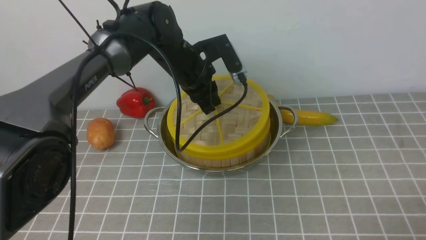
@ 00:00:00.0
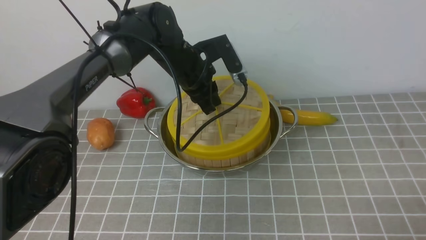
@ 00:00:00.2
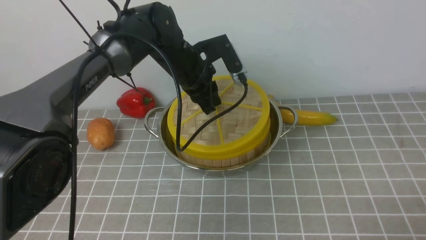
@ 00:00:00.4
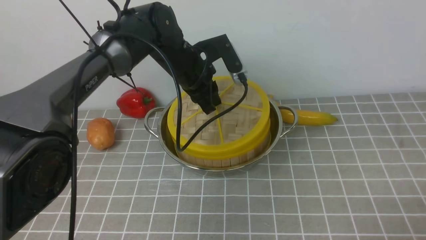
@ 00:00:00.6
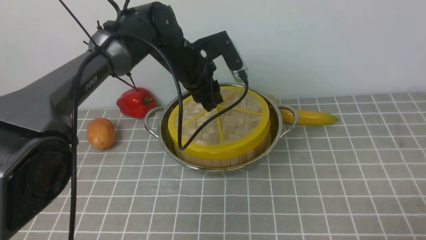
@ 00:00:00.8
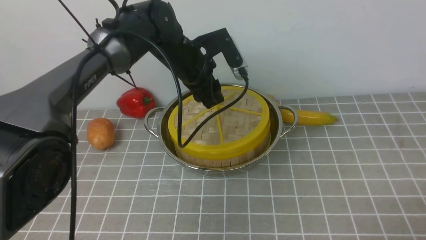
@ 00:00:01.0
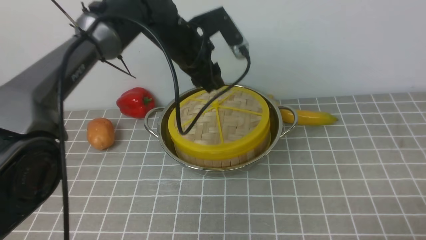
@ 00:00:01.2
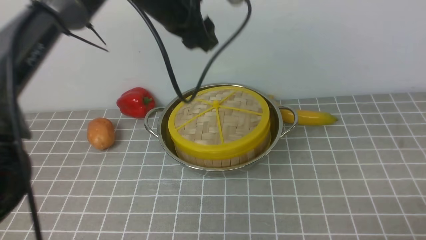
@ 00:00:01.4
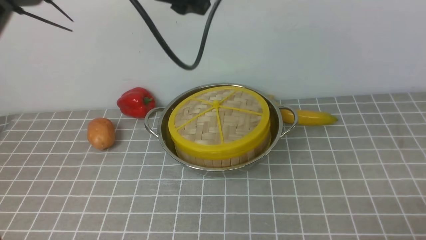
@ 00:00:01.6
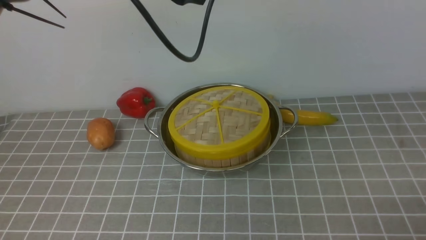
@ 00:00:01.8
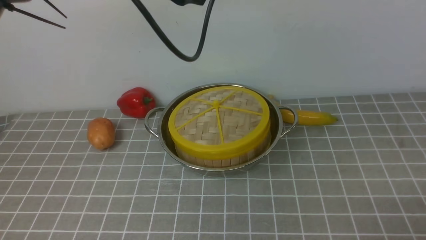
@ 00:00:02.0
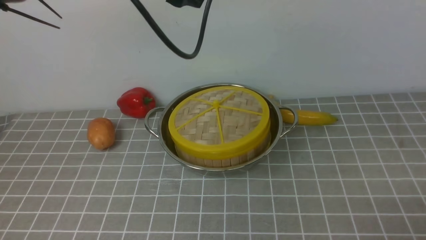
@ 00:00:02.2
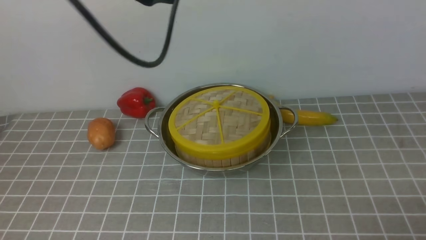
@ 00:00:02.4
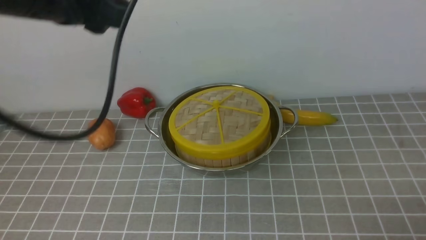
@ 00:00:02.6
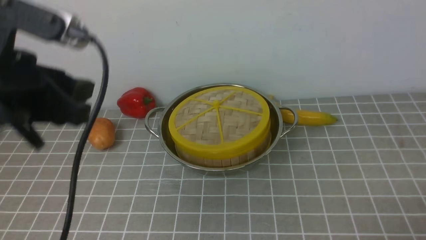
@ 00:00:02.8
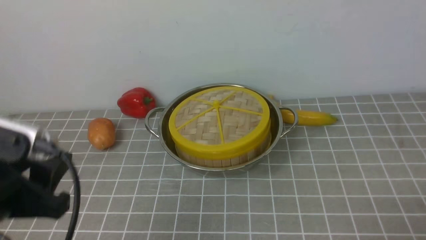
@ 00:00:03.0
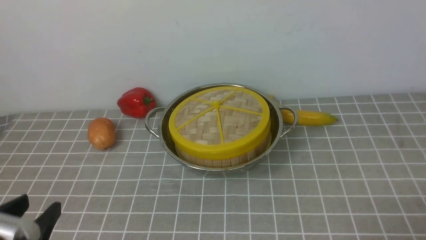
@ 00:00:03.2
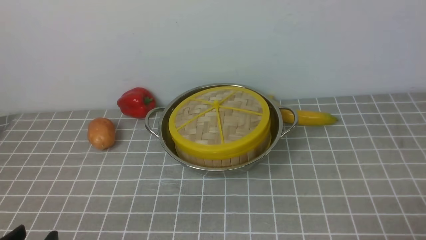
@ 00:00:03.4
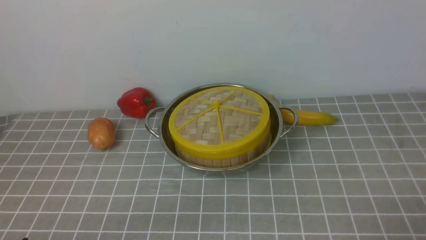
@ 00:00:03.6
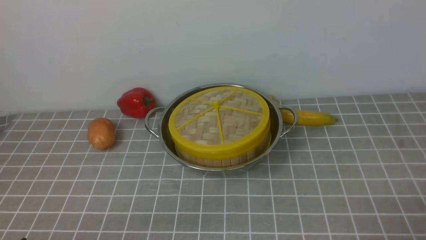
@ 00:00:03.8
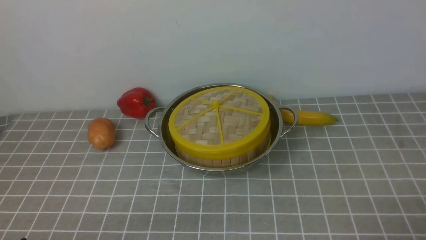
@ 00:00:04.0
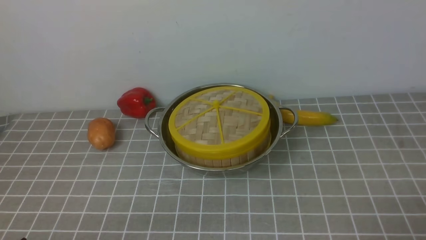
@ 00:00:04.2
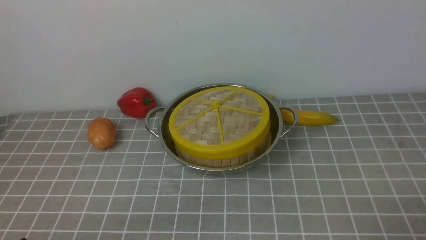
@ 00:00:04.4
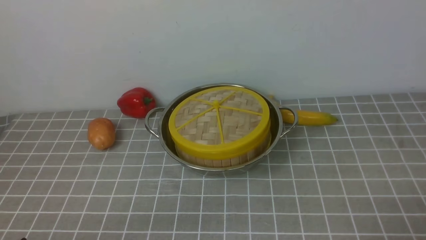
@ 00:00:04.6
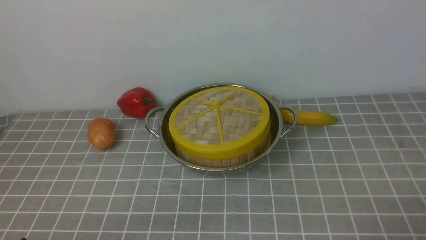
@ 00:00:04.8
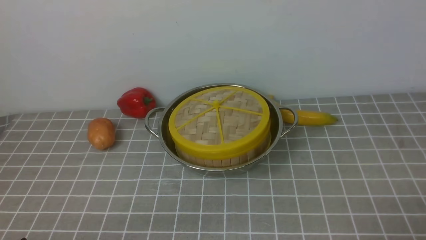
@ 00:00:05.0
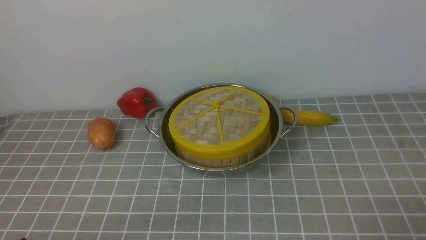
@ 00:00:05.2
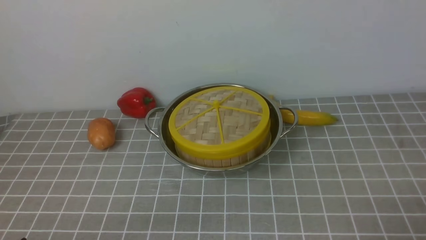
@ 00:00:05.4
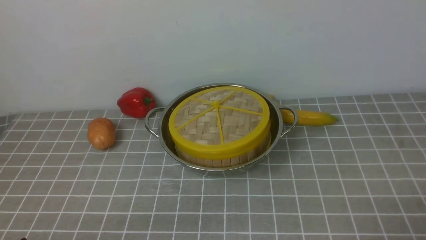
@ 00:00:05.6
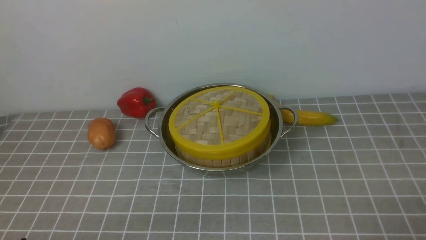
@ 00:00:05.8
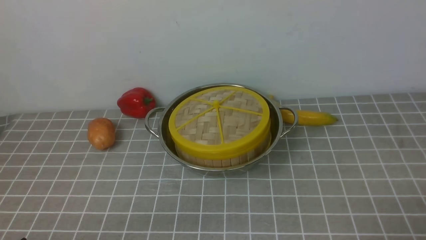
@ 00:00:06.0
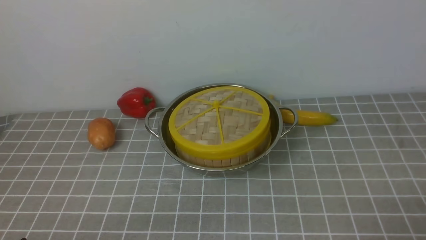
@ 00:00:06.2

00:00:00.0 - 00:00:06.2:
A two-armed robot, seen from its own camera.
Task of the whole recording: place the steamer in the pot on the grey tablecloth, and put the lid on the steamer.
00:00:00.0 - 00:00:01.6: The left gripper heads upward, covering some 15 cm, and opens up.
00:00:01.6 - 00:00:03.2: The left gripper heads backward, downward and to the left, covering approximately 40 cm.
00:00:03.2 - 00:00:04.6: The left gripper is displaced downward by approximately 5 cm.
00:00:04.6 - 00:00:06.2: The two grippers keep their place.
